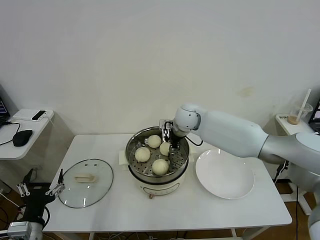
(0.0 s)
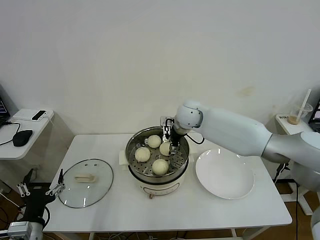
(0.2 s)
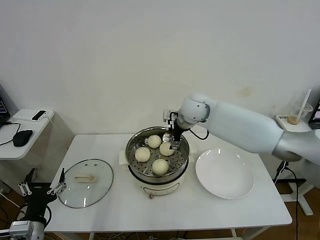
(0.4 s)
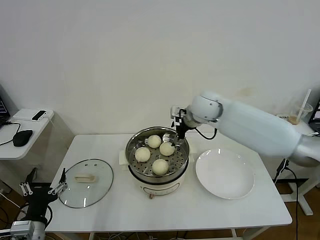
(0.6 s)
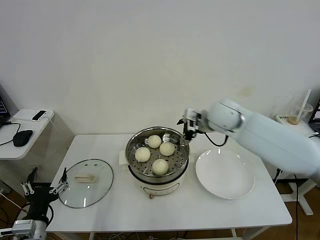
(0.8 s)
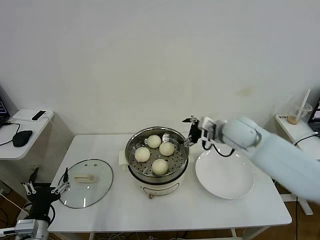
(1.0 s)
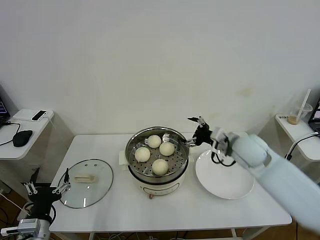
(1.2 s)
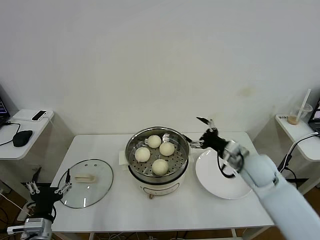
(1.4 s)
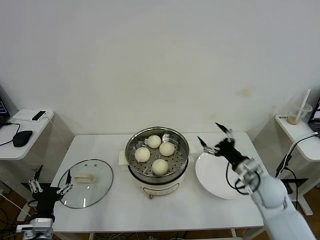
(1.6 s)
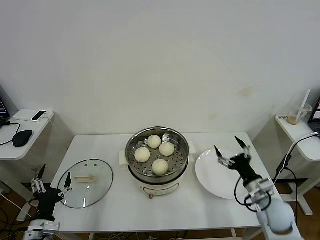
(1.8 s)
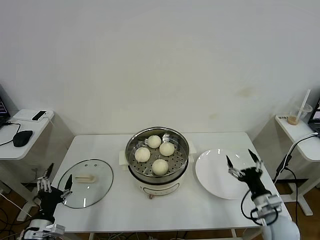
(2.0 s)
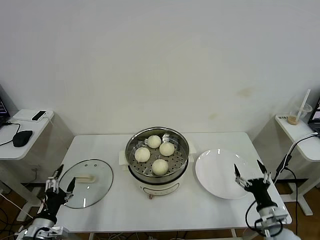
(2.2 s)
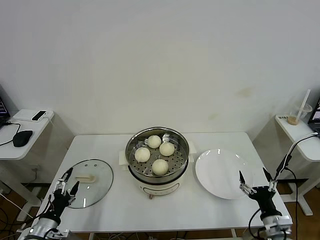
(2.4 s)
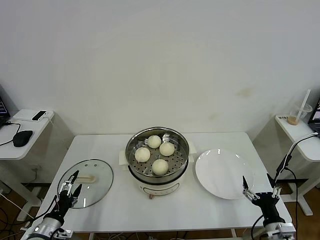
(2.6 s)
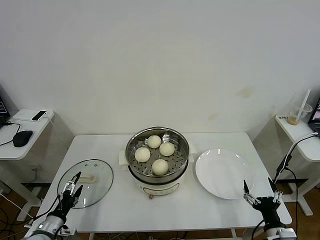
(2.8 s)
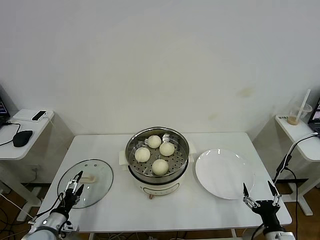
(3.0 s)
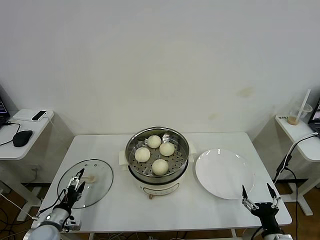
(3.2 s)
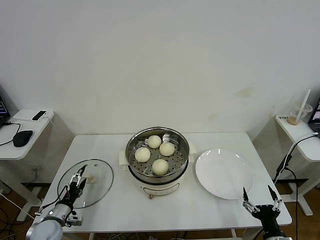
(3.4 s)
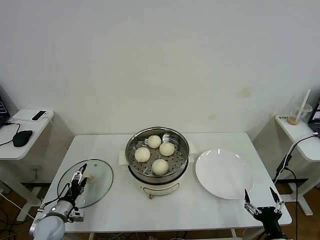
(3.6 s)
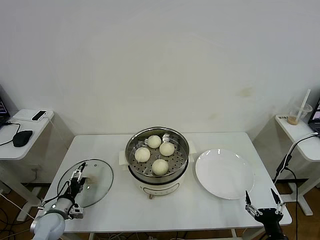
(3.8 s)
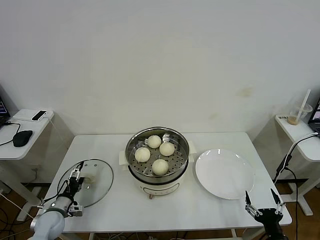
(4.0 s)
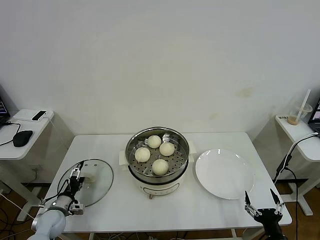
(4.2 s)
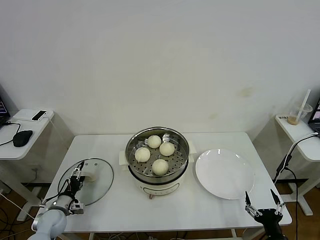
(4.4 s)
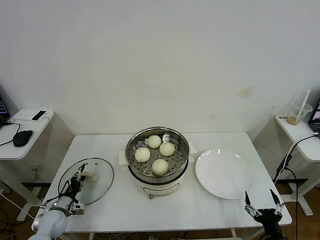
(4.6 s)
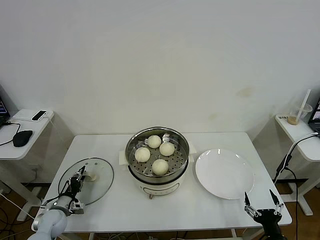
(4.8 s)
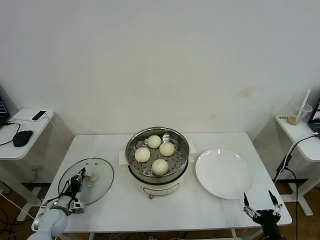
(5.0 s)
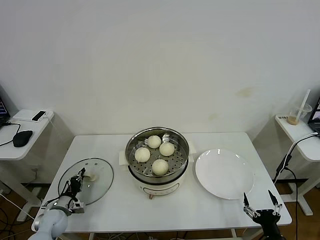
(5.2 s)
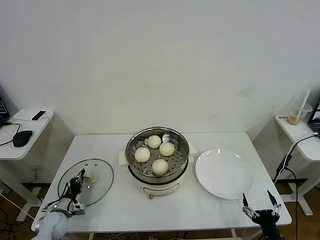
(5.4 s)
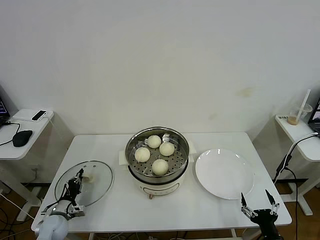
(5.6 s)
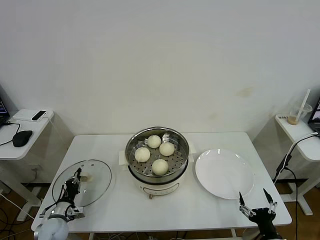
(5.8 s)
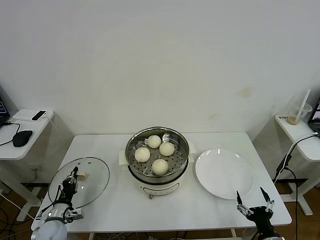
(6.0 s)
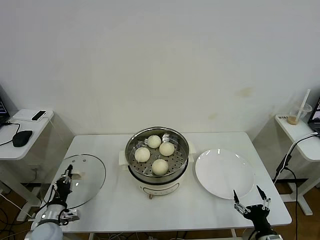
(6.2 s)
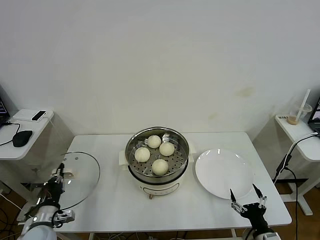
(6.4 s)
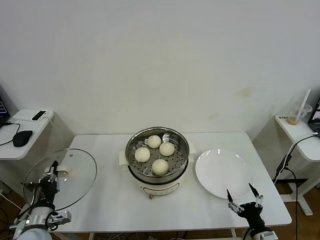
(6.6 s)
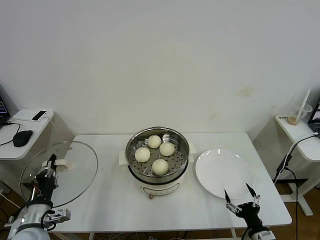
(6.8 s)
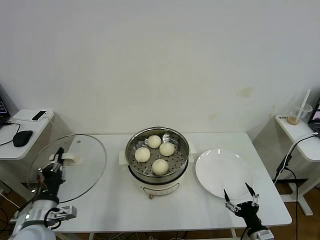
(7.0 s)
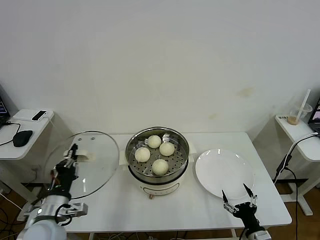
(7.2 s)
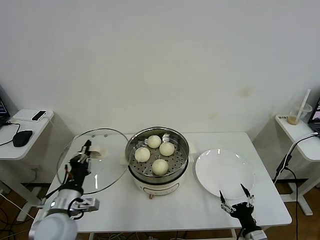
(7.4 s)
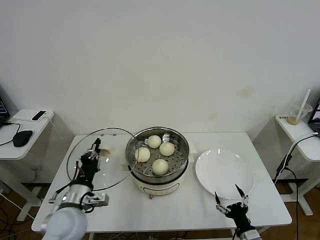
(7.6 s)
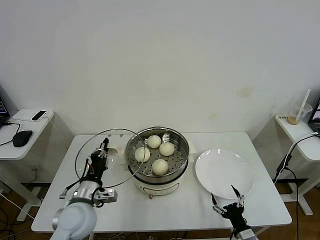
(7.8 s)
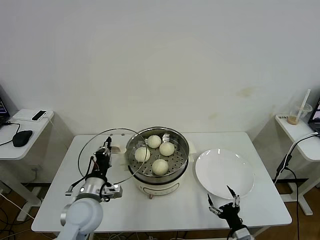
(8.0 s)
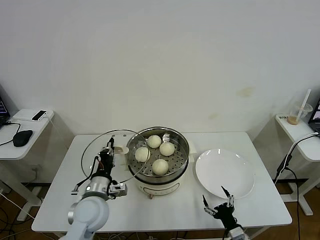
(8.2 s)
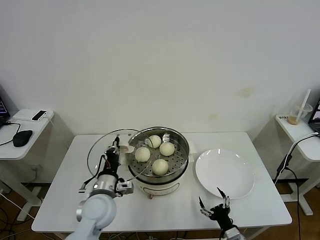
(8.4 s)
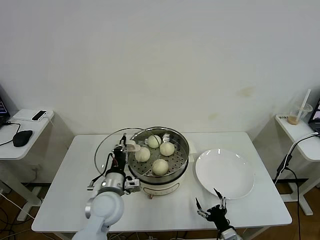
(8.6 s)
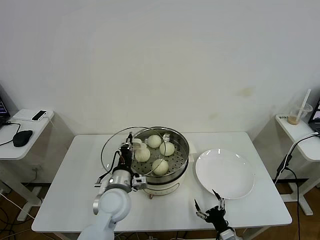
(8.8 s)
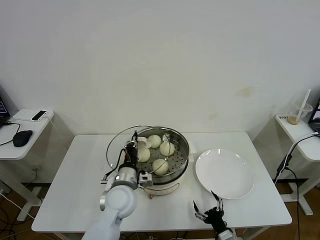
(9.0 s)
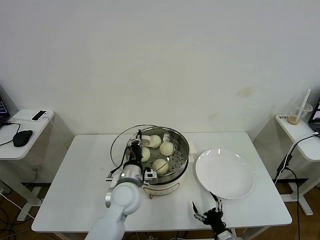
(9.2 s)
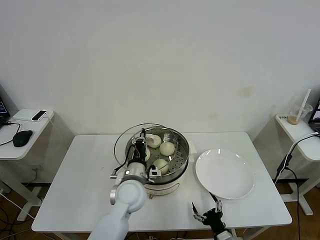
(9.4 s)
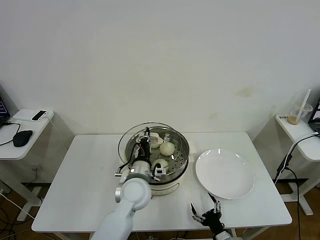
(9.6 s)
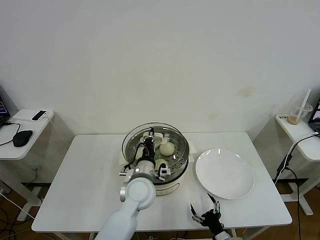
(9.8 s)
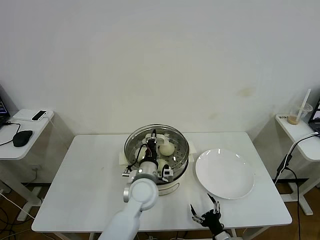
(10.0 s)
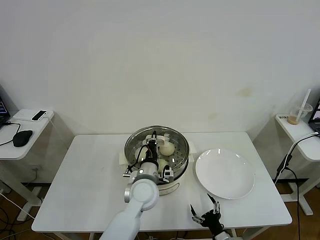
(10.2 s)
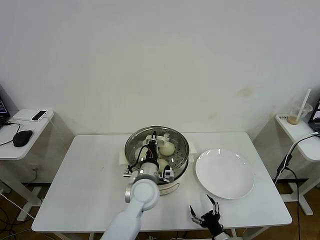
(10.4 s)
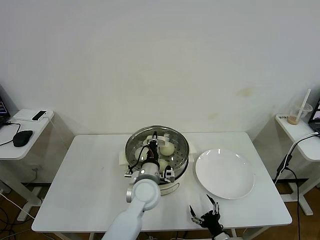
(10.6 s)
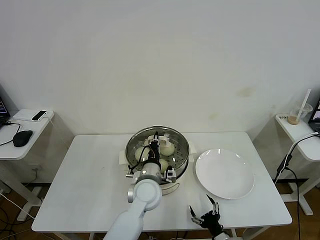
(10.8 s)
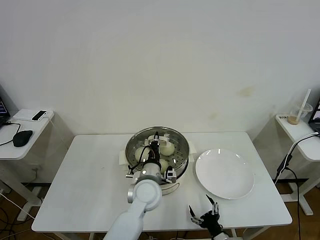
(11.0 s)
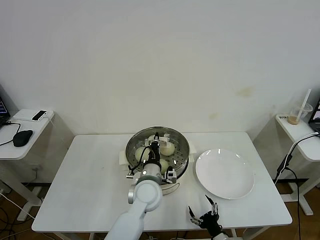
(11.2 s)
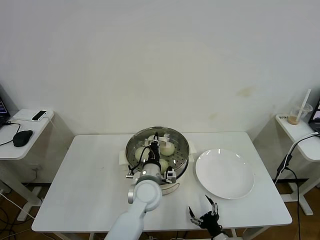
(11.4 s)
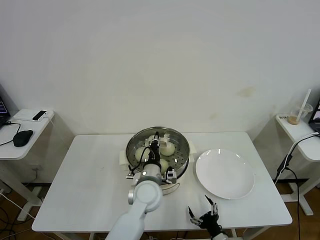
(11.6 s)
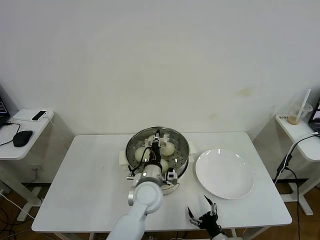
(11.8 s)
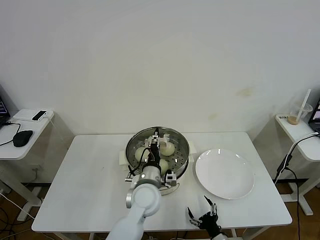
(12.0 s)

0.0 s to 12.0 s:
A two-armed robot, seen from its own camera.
Task of the whole recording: take steamed baozi put them in steamer then cover it.
Step, 0.4 to 5.2 s: Grasp the pot lid with left gripper.
0.0 to 1.6 s: The right gripper travels to the right, backward and downward by roughly 30 cm, and opens its fingers.
1.6 to 3.0 s: The left gripper heads downward and to the left, covering approximately 10 cm. Meanwhile the right gripper travels backward and downward by some 25 cm.
3.0 to 4.4 s: The left gripper heads forward, covering roughly 10 cm.
4.4 to 6.0 s: The left gripper closes up.
6.0 to 7.6 s: The right gripper ends up roughly 5 cm from where it was. Meanwhile the left gripper heads upward and to the right, covering some 25 cm.
7.6 to 9.0 s: The left gripper goes roughly 15 cm to the right and forward. Meanwhile the right gripper is displaced to the left by about 5 cm.
9.0 to 10.4 s: The left gripper heads to the right, covering approximately 5 cm.
10.4 to 12.0 s: The left gripper opens its fingers.

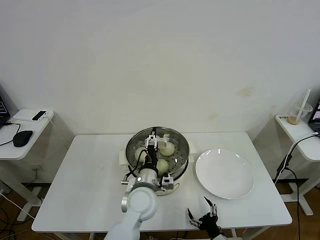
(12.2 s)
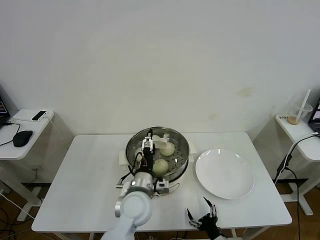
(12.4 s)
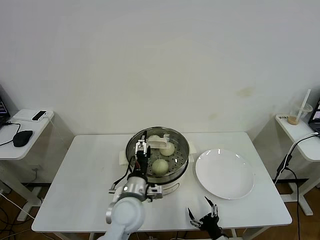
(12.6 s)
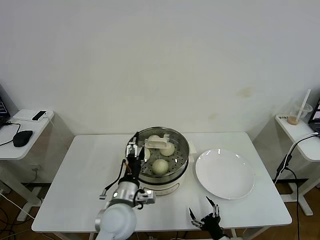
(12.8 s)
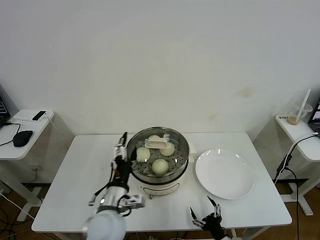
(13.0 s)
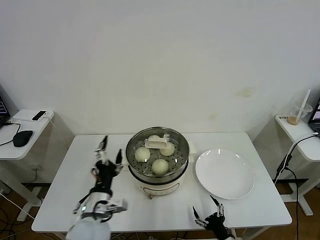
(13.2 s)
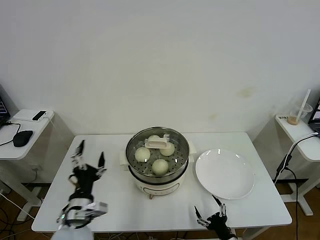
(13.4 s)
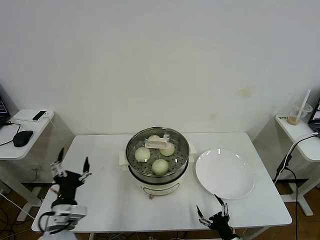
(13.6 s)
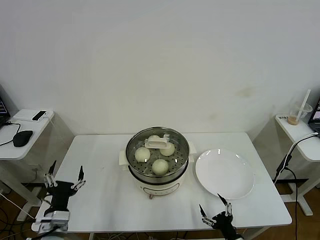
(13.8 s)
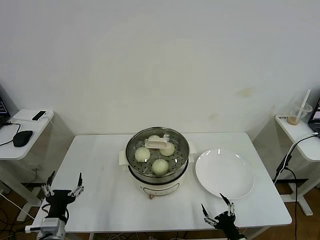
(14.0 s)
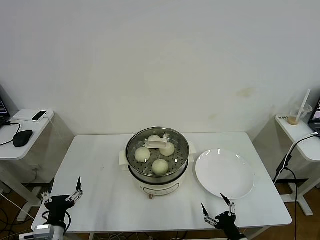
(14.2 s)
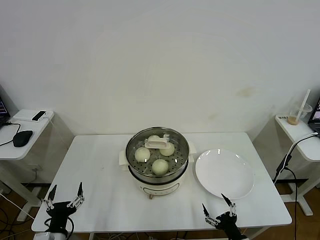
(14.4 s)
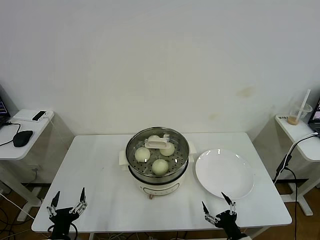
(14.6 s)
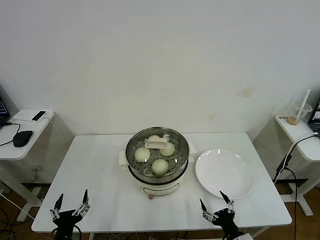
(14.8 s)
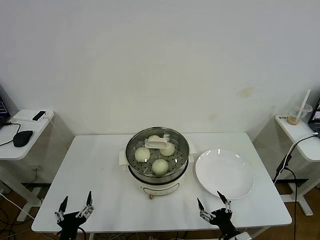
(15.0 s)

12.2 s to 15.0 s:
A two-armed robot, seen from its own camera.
Task of the whole recording: take steamed baozi put them in steamer then cover it.
12.2 to 13.6 s: The left gripper travels to the left and backward by some 25 cm.
13.6 to 15.0 s: The left gripper moves downward and backward, approximately 10 cm.
